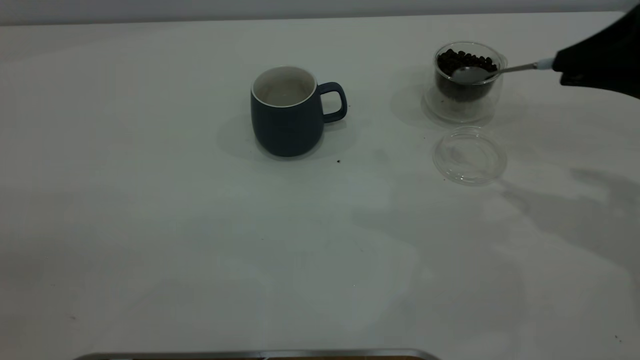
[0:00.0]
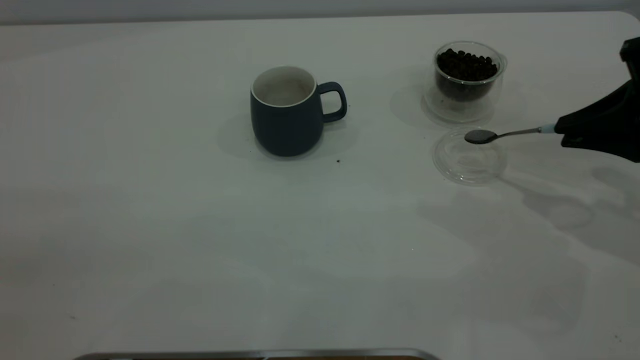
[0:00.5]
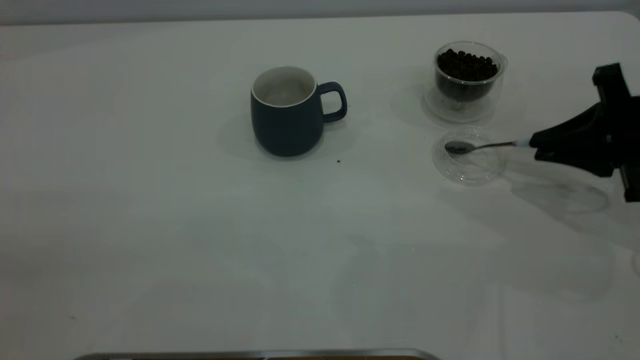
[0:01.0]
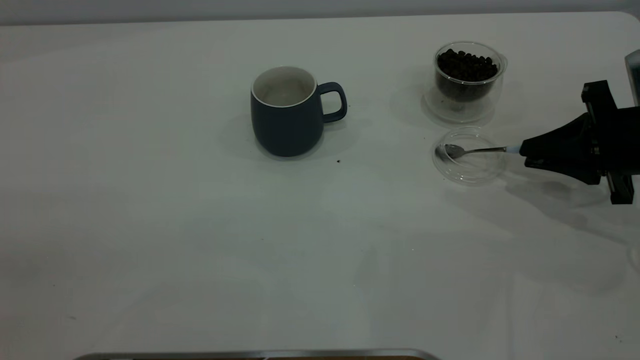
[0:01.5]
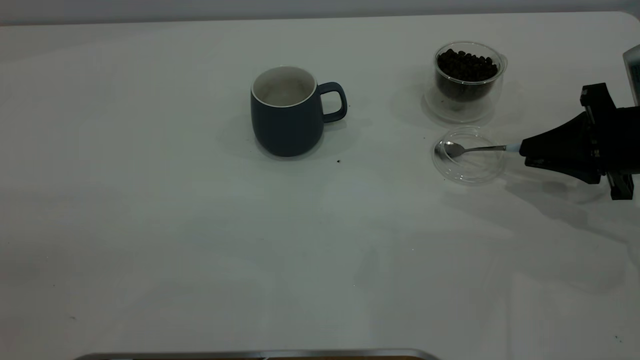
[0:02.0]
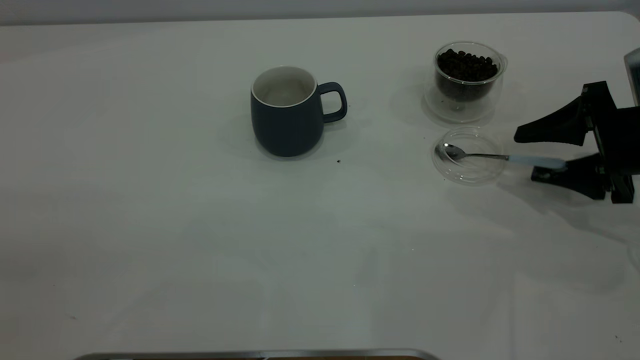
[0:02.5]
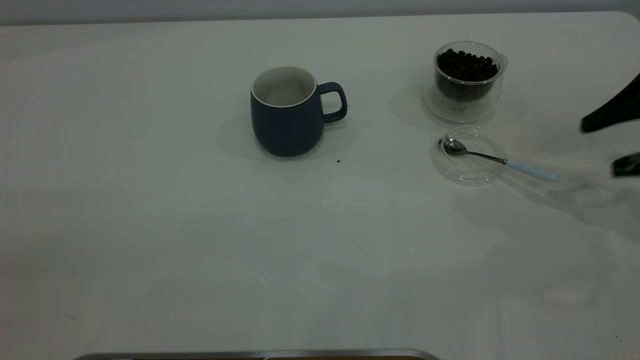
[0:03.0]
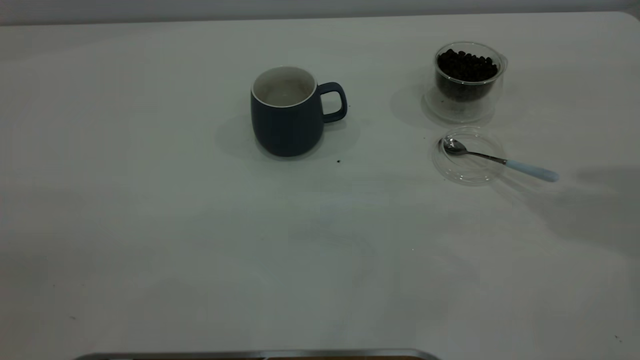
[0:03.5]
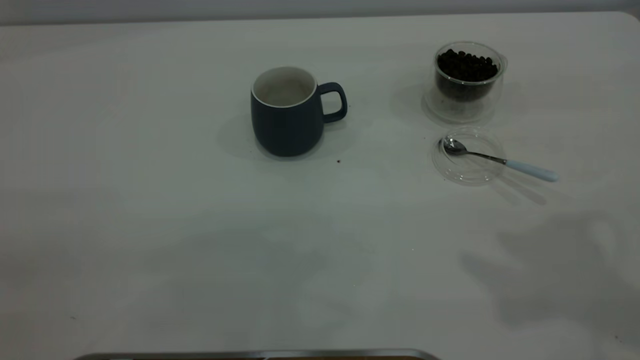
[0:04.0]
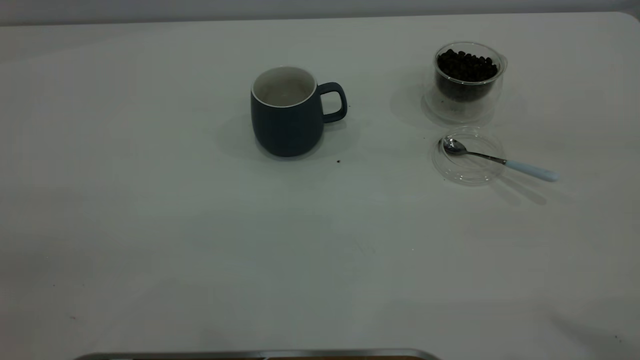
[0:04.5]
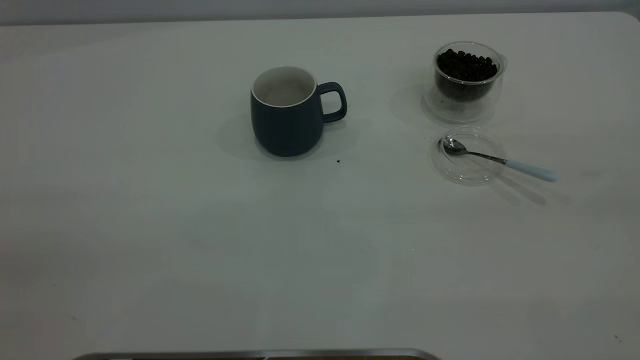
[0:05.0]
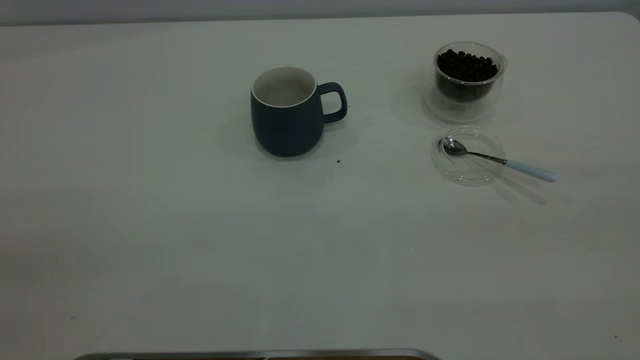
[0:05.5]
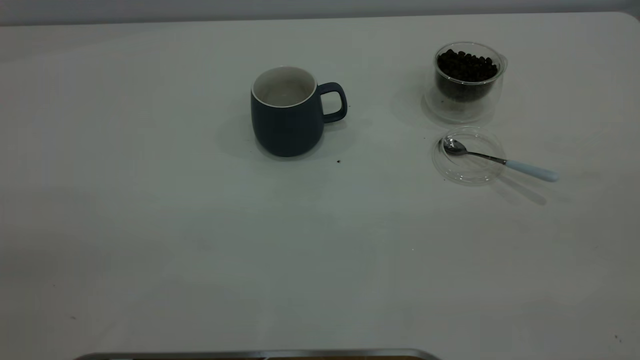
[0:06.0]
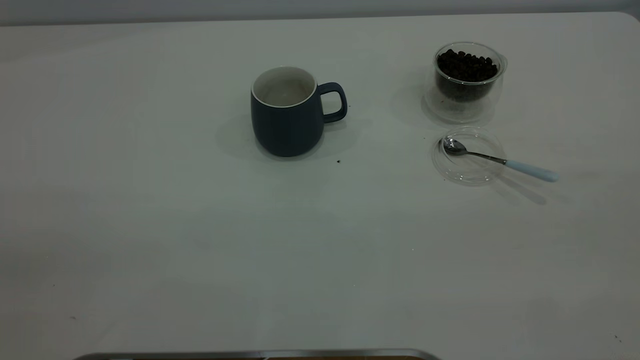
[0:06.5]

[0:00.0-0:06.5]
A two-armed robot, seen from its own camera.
Task of the whole recording: the left gripper place the grey cup in the center of the table, the right gripper take the blue spoon from the cup lid and scoop out the coffee beans from the coffee cup and put them into the grey cup, the right gripper put the spoon back into the cup lid.
Step, 0:00.0 to 0:02.5: Place the spoon back in its original place.
0:00.0 to 0:02.0: The right gripper heads downward, covering approximately 15 cm.
0:02.0 to 0:04.5: The right gripper travels upward and backward by approximately 40 cm, and opens up.
